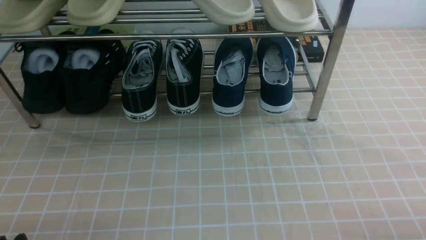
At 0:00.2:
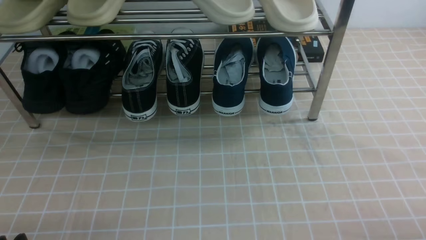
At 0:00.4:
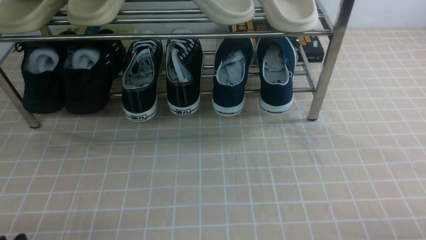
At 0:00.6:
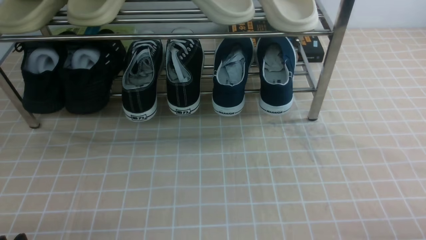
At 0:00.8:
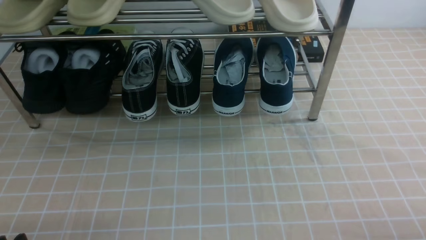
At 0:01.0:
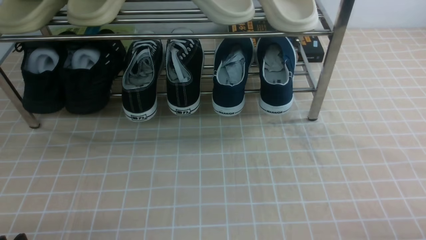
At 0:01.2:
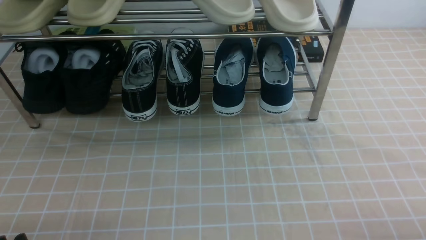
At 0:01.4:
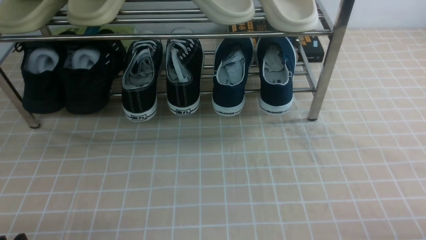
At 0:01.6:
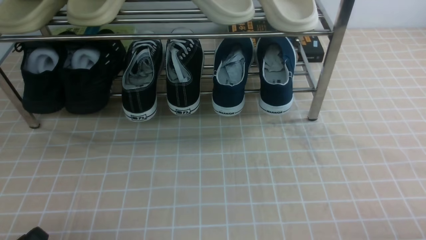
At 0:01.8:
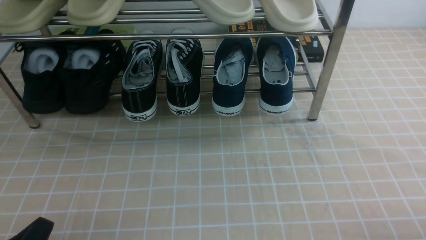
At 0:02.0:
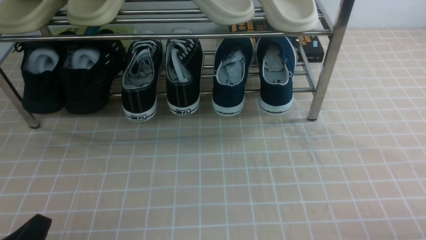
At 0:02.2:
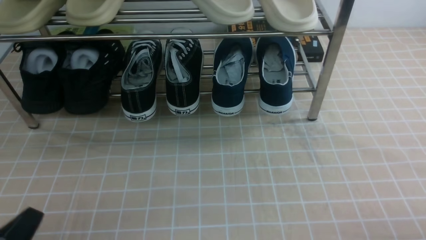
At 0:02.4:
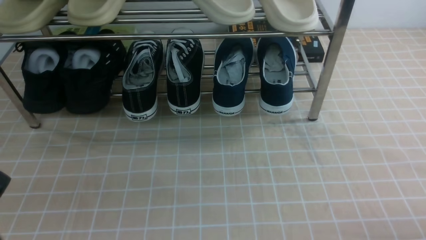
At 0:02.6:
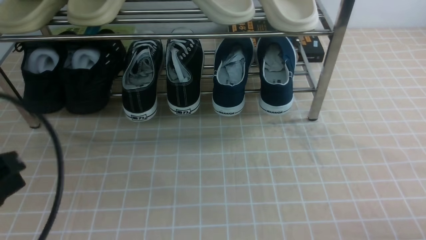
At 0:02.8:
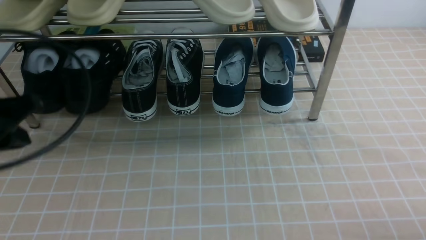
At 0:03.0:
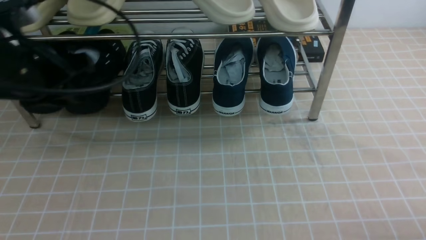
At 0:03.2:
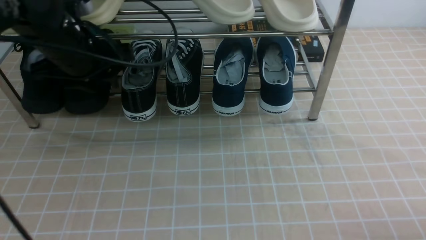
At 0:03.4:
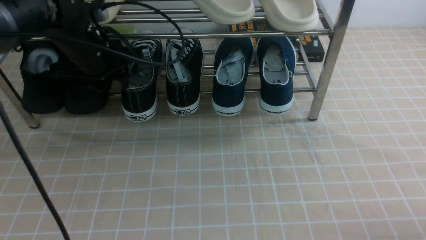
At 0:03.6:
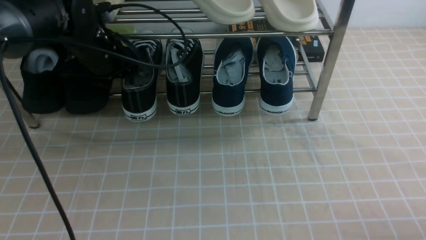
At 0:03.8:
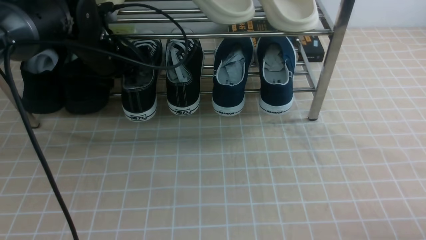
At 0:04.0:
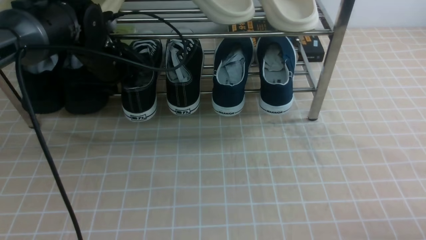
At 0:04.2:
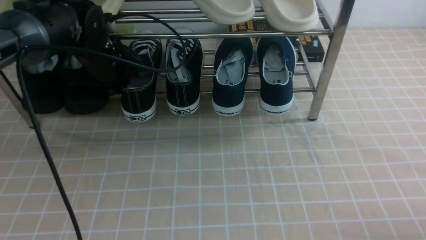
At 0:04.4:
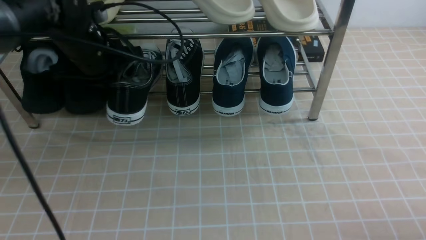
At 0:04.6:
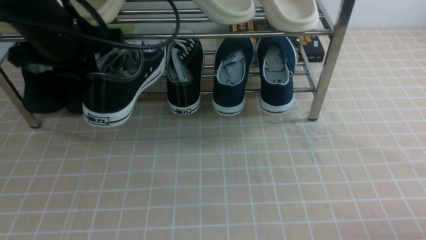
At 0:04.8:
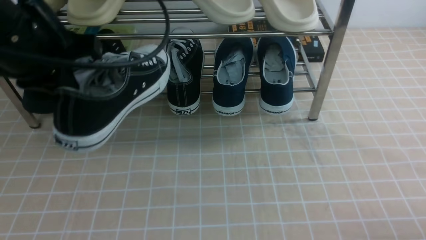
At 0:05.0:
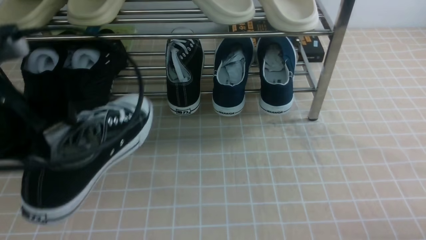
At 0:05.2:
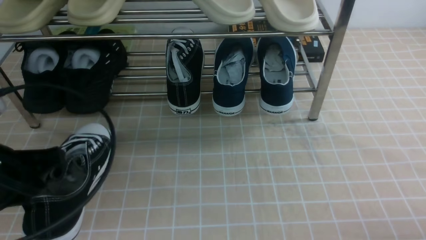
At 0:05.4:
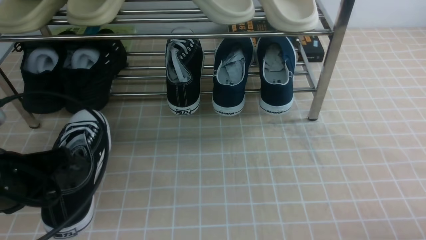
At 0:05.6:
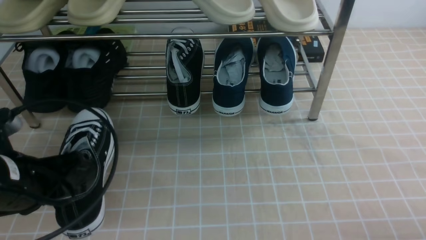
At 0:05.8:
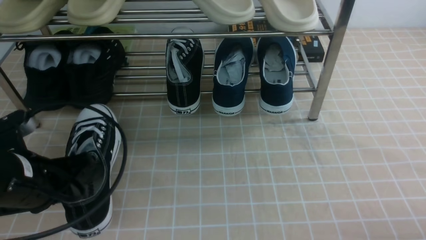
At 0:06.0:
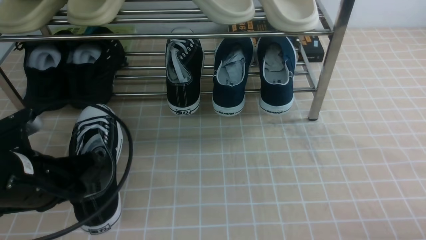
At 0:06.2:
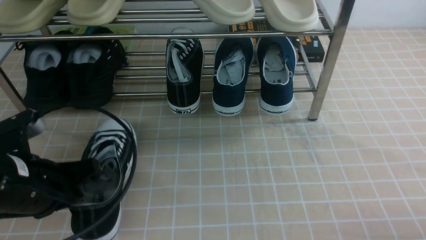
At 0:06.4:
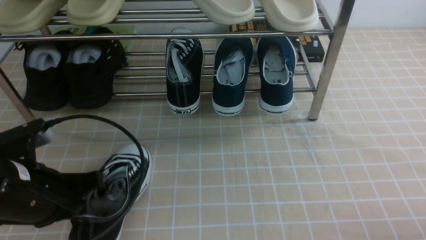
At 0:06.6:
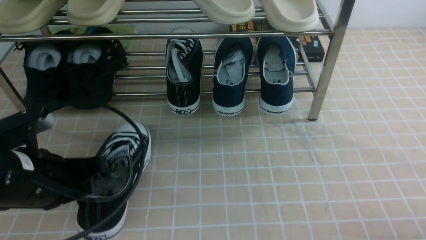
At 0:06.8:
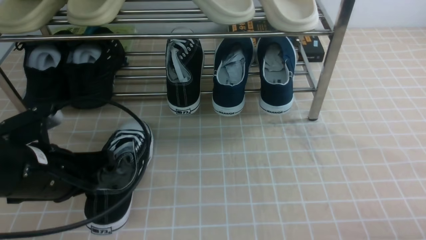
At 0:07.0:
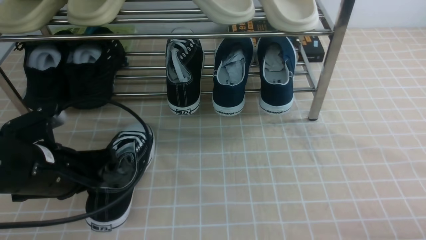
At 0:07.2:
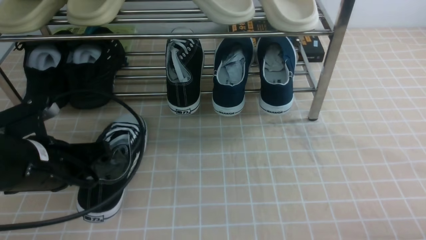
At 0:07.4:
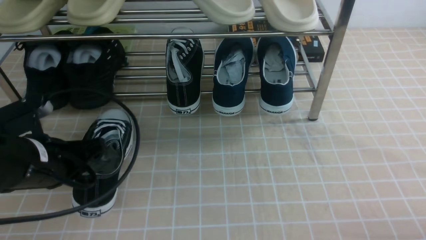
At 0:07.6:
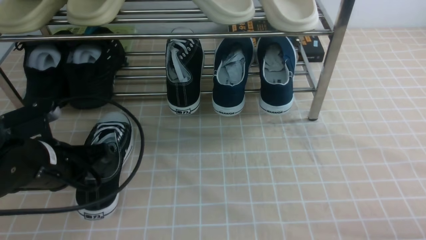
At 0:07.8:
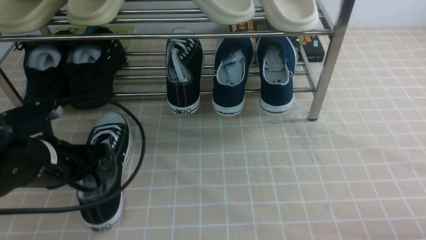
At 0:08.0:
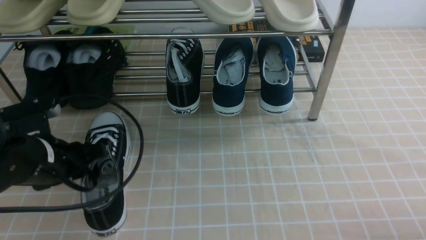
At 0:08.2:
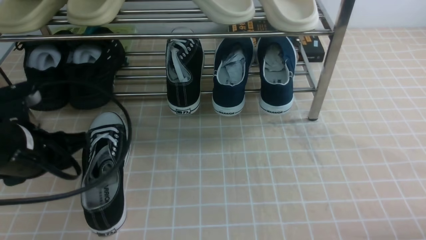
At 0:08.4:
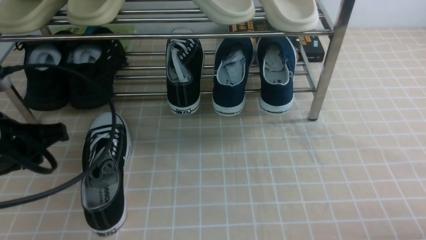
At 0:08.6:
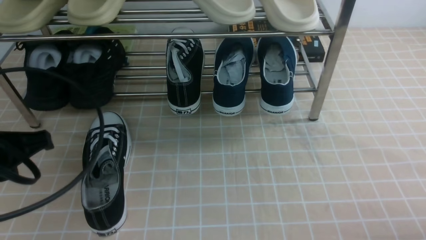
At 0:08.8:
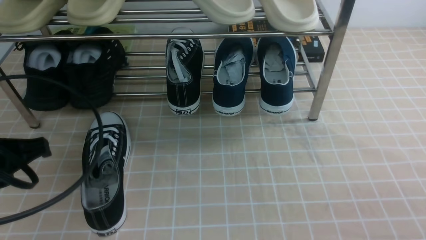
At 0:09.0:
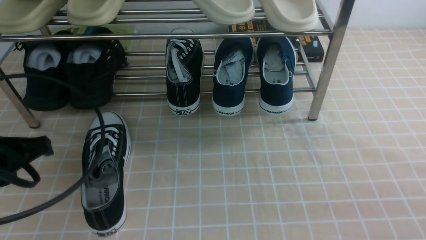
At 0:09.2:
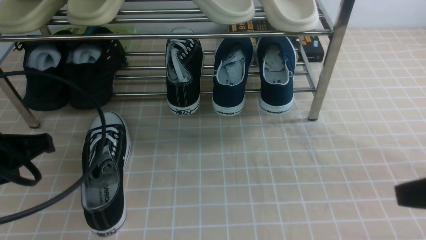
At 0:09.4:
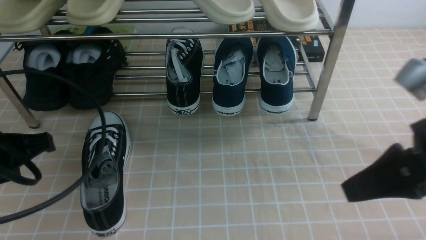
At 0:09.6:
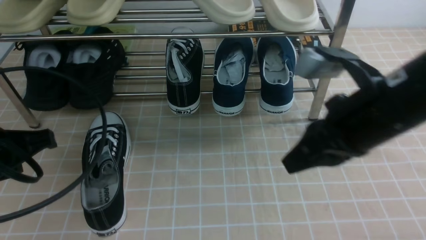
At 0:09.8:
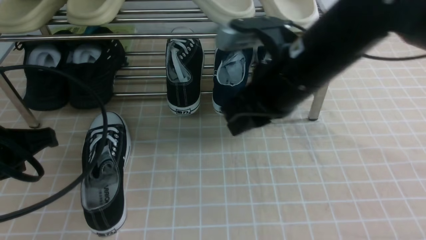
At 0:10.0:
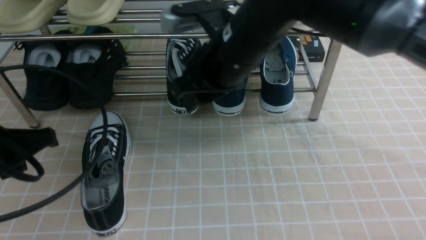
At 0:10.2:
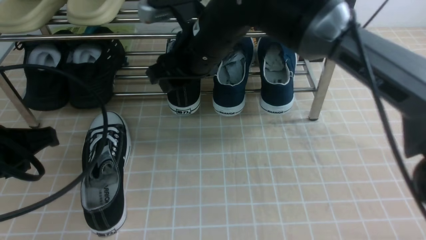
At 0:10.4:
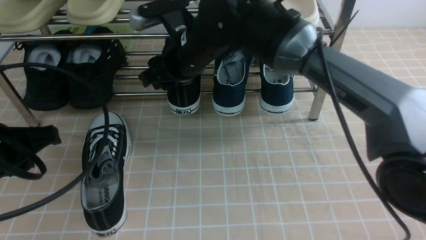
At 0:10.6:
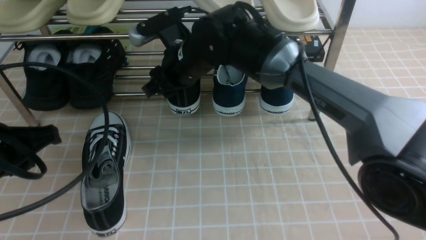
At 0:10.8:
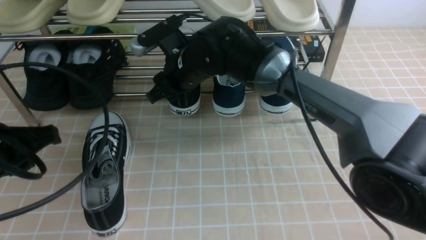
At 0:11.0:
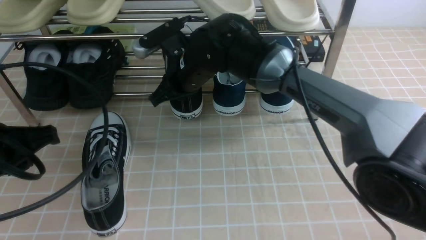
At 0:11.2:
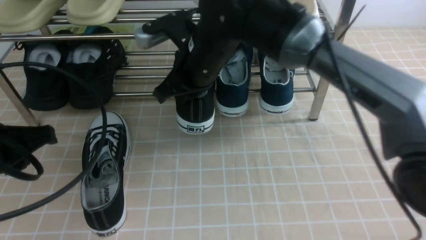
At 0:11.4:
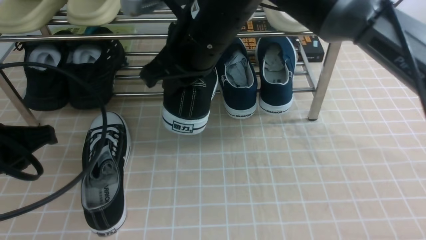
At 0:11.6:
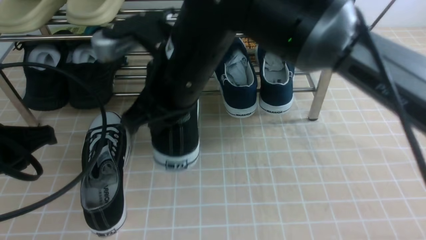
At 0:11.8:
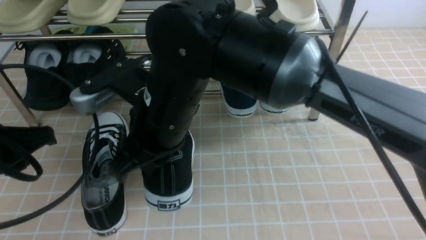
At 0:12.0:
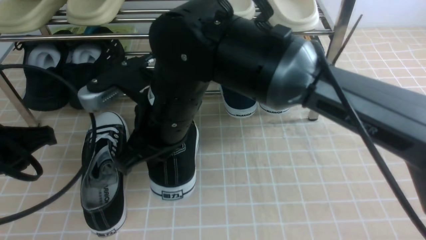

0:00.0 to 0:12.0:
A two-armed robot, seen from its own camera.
Step, 0:00.0 to 0:04.0: use the left arm to clamp a shoe in the middle of the shoe rack.
Step, 0:04.2 to 0:08.0: Use your left arm to remove the clamped shoe from the shoe rack and put it down.
Step, 0:08.2 to 0:10.8: use the right arm to clamp a shoe in the middle of the shoe rack.
0:01.6 to 0:03.0: The left gripper shifts about 30 cm forward and upward, and closes, then opens again.
0:03.0 to 0:04.4: The left gripper shifts about 10 cm forward, and closes up.
0:04.4 to 0:06.0: The left gripper goes about 20 cm backward and downward.
0:06.0 to 0:07.6: The grippers move only a little.
0:07.6 to 0:09.0: The left gripper goes about 10 cm upward and backward, and opens and closes again.
0:09.0 to 0:10.4: The right gripper shifts approximately 40 cm forward and to the left, and opens up. The left gripper opens.
0:10.4 to 0:12.0: The right gripper heads backward, covering roughly 10 cm, and closes up.

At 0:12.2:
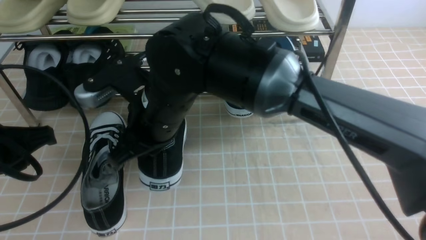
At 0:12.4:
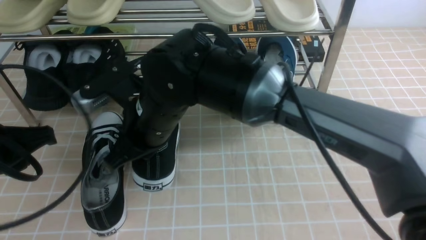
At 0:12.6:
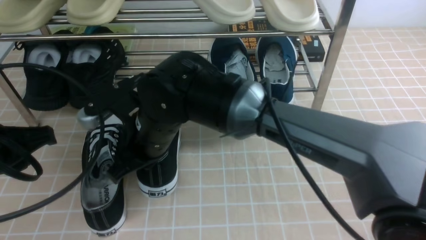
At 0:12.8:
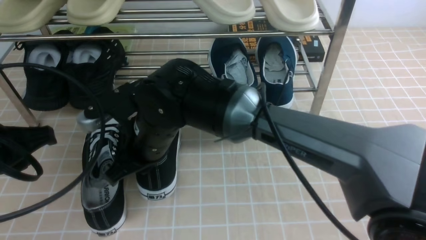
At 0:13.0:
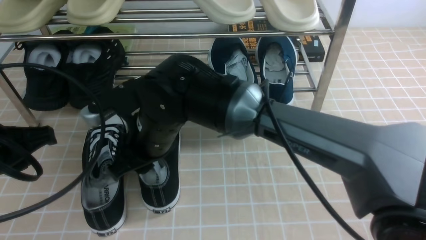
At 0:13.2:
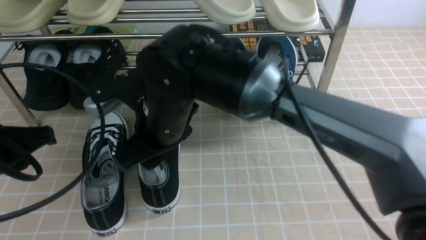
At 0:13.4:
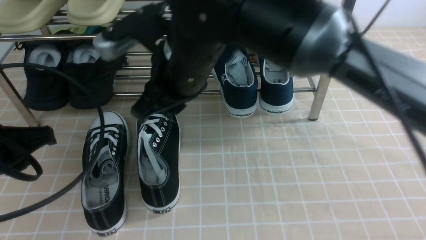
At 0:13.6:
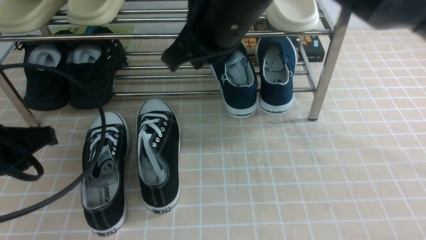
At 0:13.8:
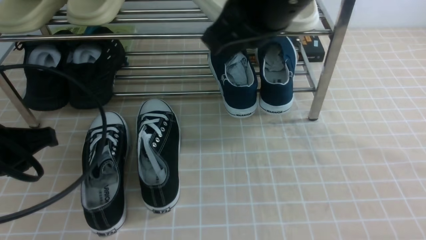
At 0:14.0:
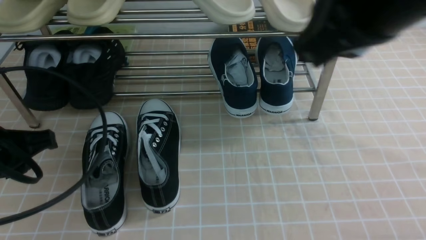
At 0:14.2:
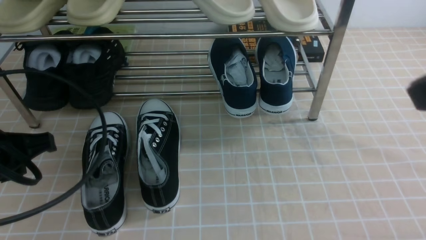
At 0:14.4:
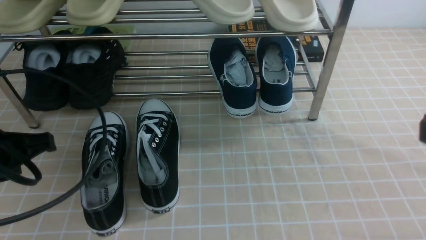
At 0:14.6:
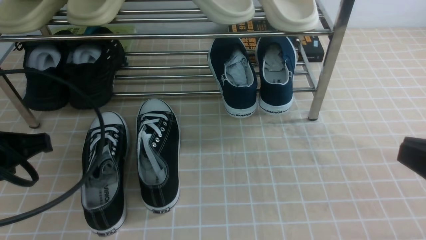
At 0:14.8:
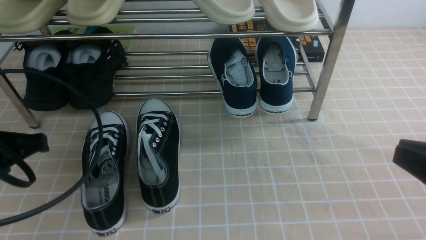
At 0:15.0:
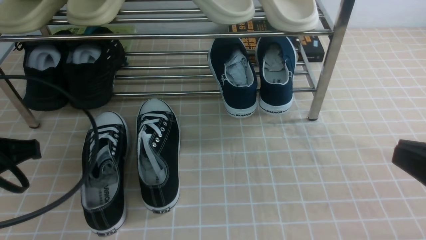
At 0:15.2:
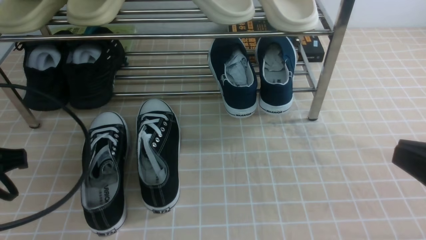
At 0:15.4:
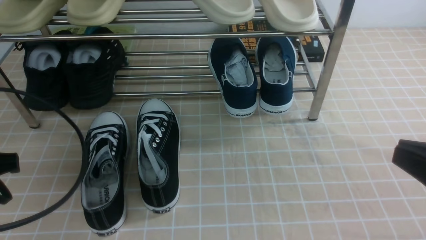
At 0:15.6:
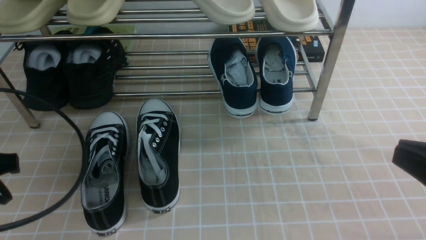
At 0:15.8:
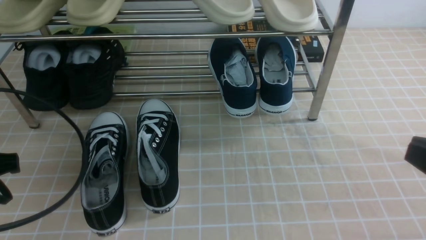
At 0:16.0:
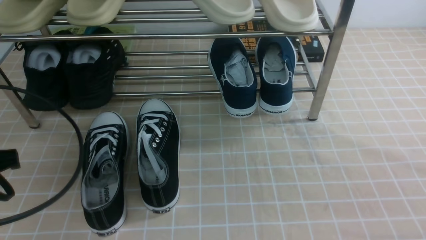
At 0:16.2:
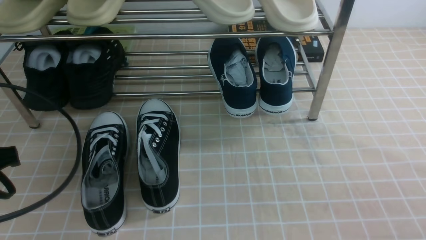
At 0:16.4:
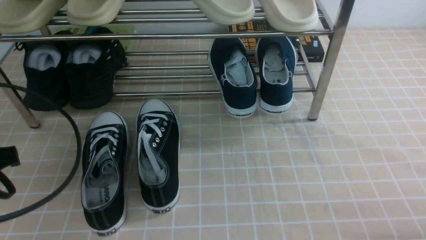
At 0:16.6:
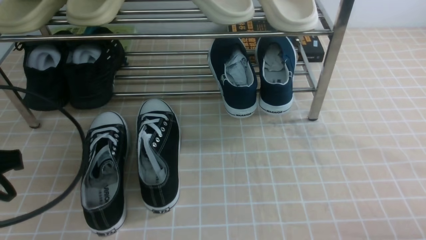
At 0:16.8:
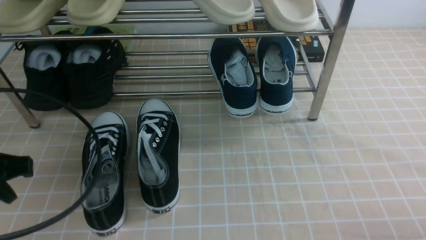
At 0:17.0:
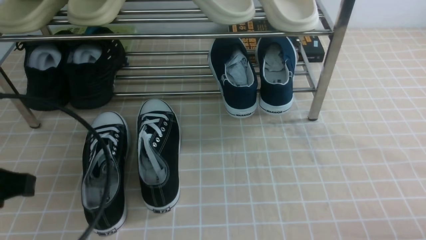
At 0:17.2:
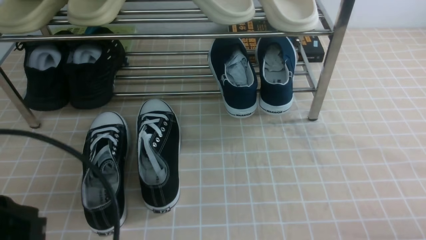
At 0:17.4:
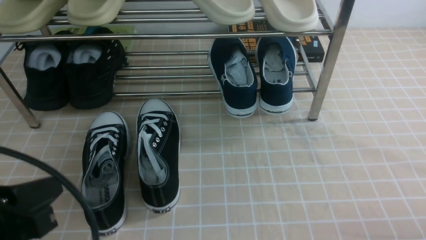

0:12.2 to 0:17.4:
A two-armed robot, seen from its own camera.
0:12.2 to 0:14.0: The right gripper moves to the right, upward and backward, some 30 cm, and opens, then closes again.
0:14.0 to 0:15.6: The right gripper moves downward, to the right and backward, approximately 20 cm. Meanwhile the left gripper closes.
0:15.6 to 0:17.4: The right gripper is displaced downward and to the right by roughly 20 cm, while the left gripper is displaced backward by roughly 10 cm.
